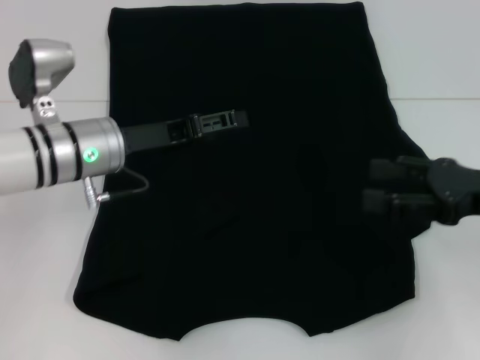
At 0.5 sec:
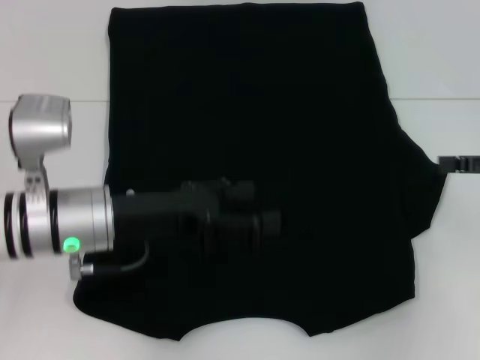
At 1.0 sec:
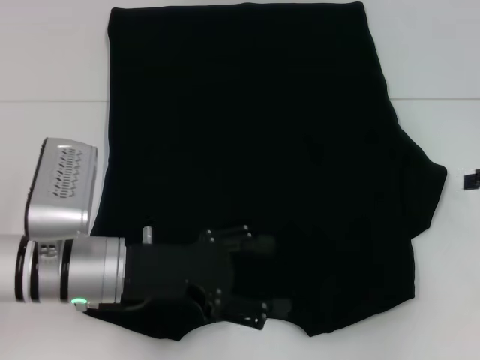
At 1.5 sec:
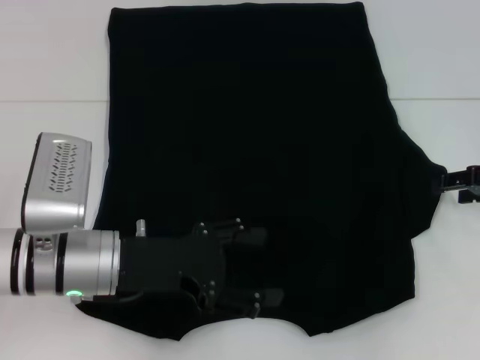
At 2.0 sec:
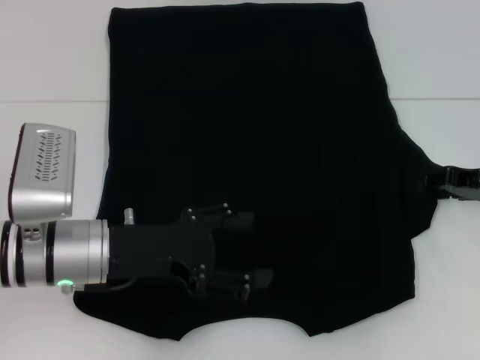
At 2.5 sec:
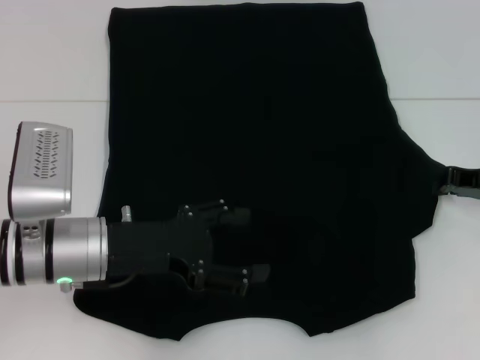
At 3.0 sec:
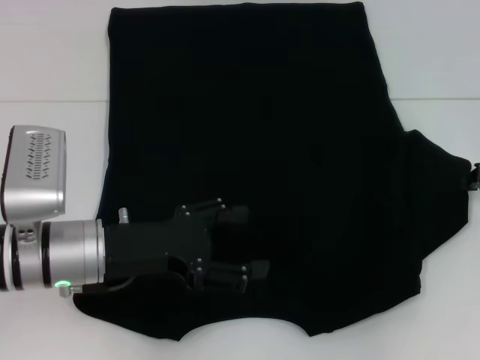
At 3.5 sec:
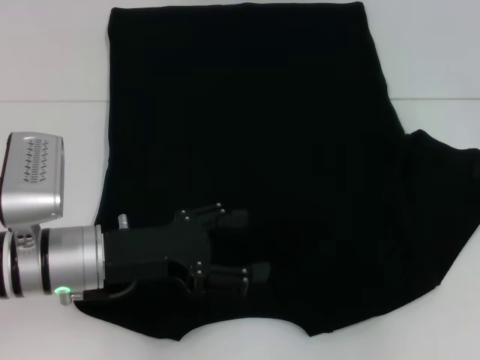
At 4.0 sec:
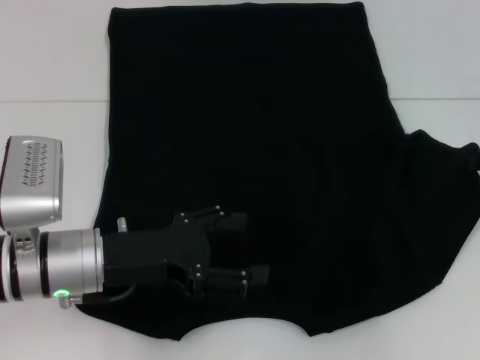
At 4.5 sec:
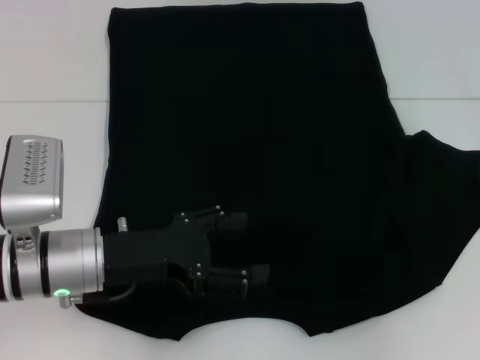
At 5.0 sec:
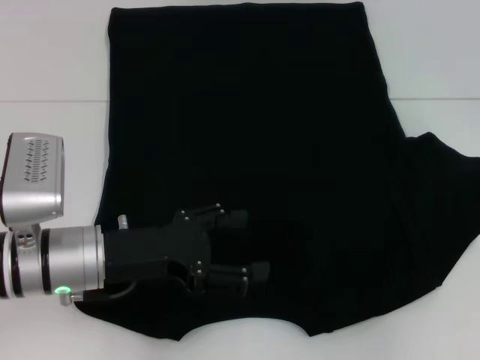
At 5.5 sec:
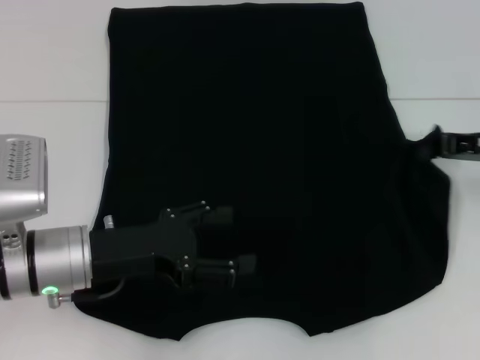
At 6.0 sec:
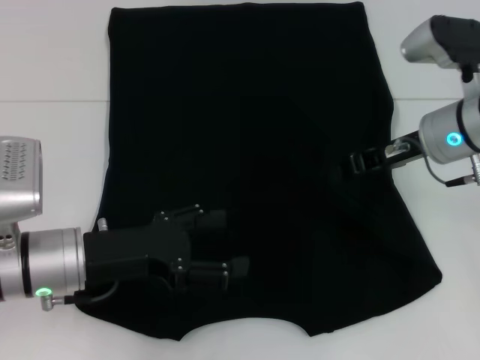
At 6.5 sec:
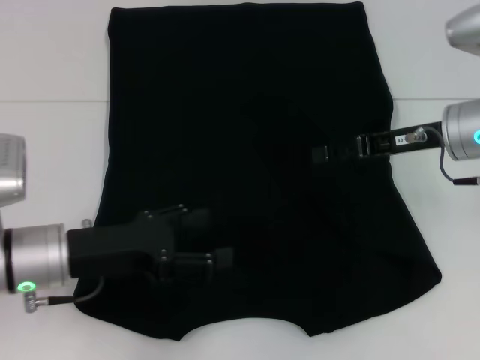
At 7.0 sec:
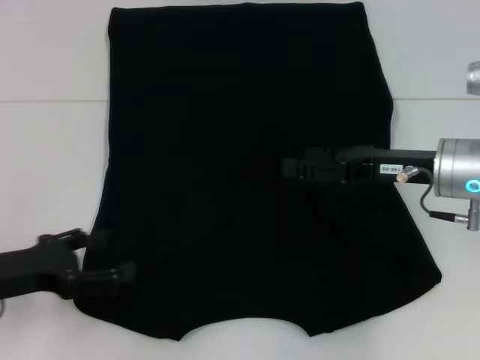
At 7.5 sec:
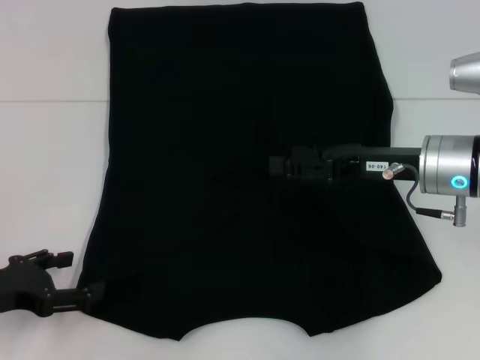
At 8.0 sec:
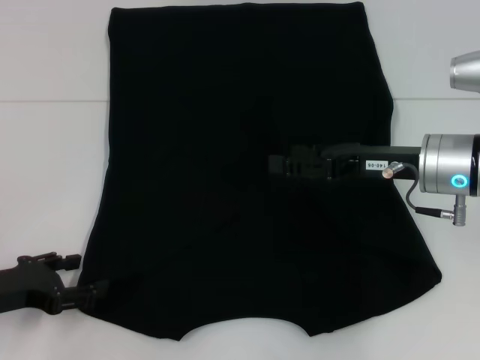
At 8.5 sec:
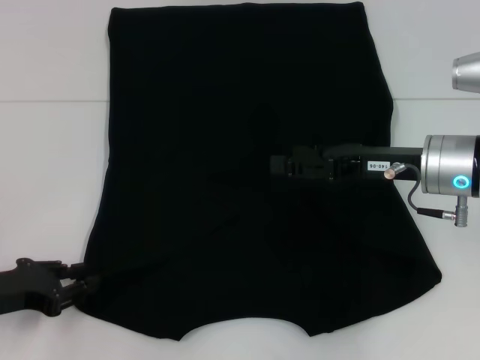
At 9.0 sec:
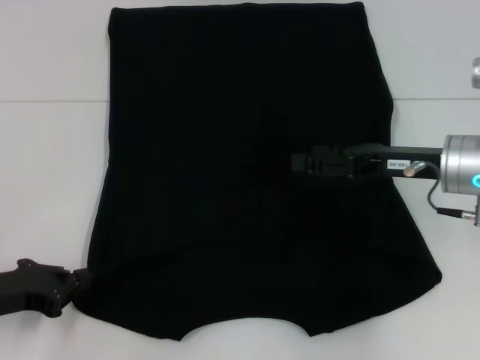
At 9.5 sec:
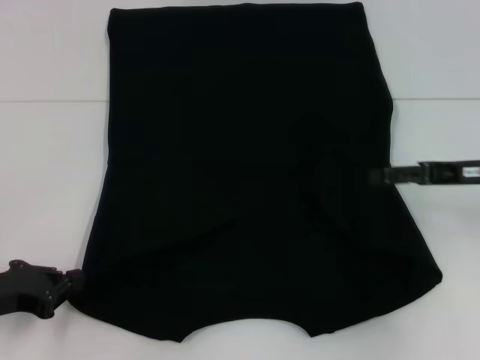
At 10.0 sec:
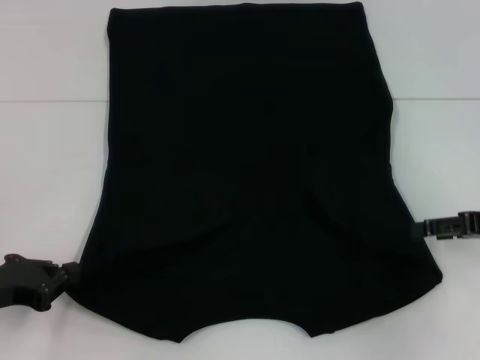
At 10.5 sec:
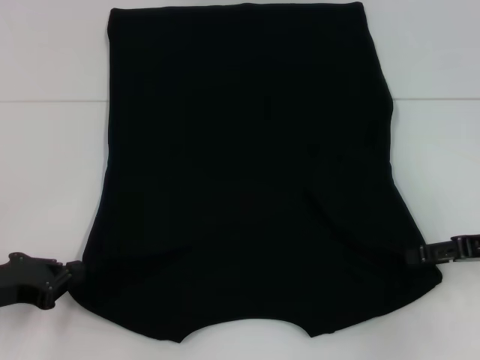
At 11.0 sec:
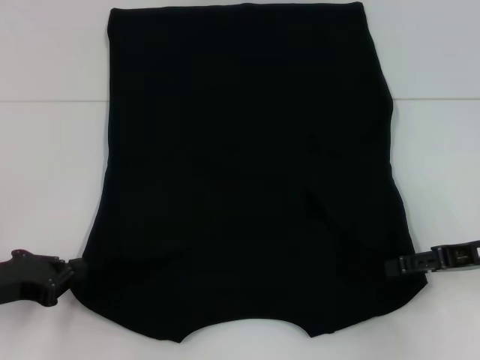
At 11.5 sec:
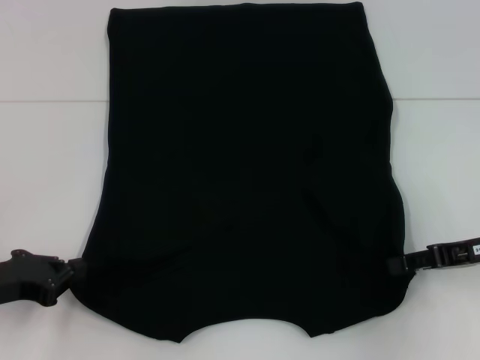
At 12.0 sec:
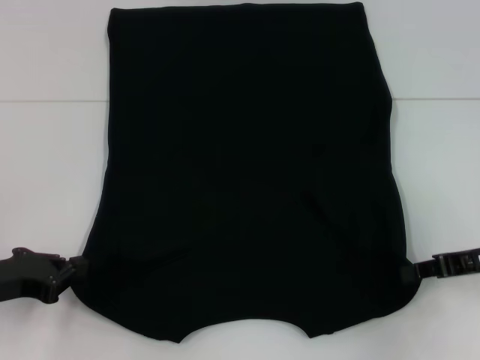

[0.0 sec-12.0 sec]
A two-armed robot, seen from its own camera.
Step, 0.5 sec to 6.0 sec: Fold the bottom right sleeve with your right hand.
Step, 6.5 sec to 9.0 sec: Grab the bottom left corner with your left hand.
Step, 9.5 sec to 11.5 sec: Grab the bottom right corner with your right hand.
0.0 sec to 2.0 sec: The left gripper goes roughly 10 cm backward, while the right gripper is displaced forward by some 10 cm, moves roughly 10 cm to the right and comes back, and closes up.
2.0 sec to 4.0 sec: The right gripper closes up.
4.0 sec to 6.0 sec: The right gripper moves to the left, some 15 cm.
6.0 sec to 8.0 sec: The left gripper shifts approximately 10 cm to the left. Meanwhile the right gripper is displaced backward by about 5 cm, and opens up.
8.0 sec to 10.0 sec: The right gripper heads to the right, covering roughly 15 cm, while the left gripper closes its fingers.
10.0 sec to 12.0 sec: The right gripper closes up.

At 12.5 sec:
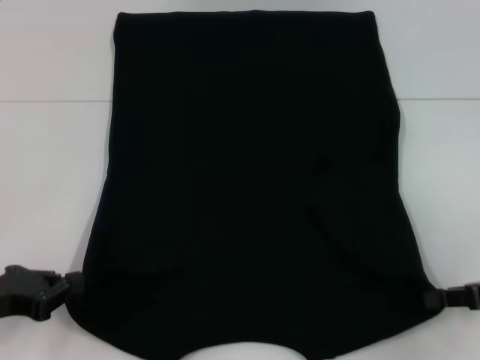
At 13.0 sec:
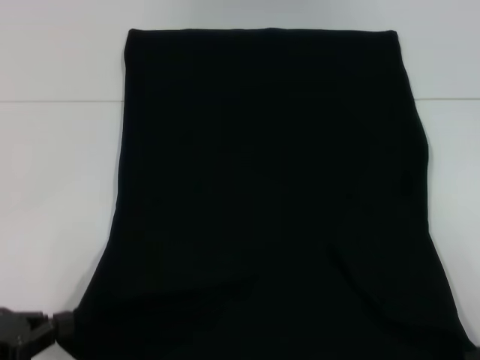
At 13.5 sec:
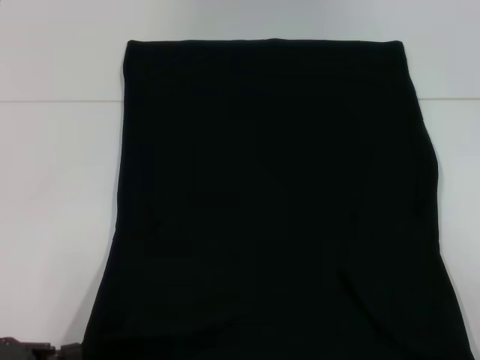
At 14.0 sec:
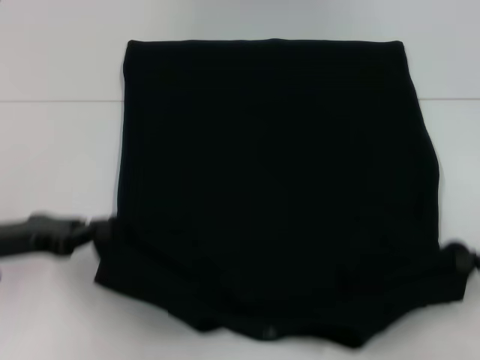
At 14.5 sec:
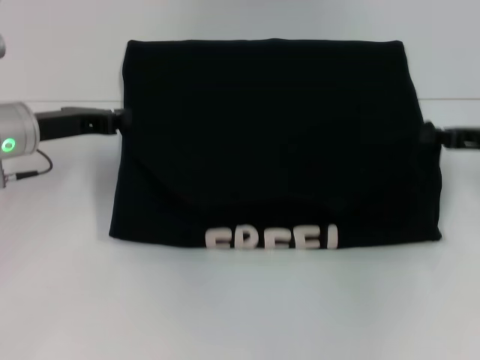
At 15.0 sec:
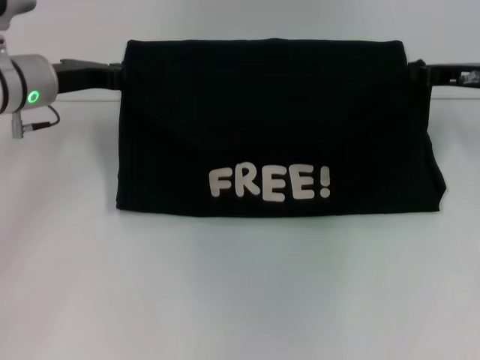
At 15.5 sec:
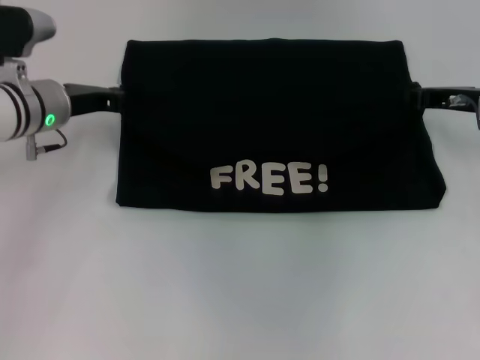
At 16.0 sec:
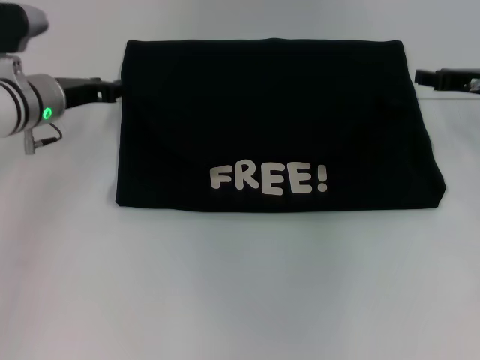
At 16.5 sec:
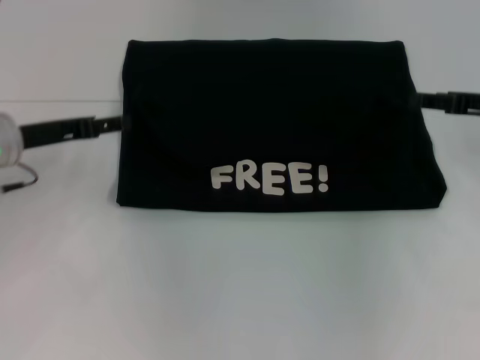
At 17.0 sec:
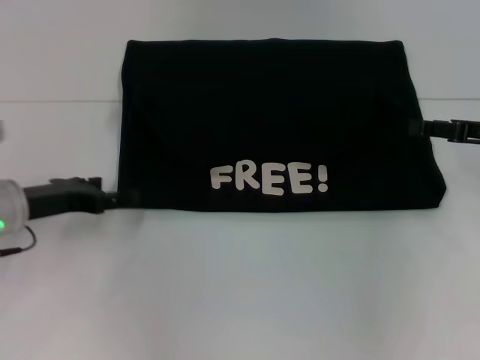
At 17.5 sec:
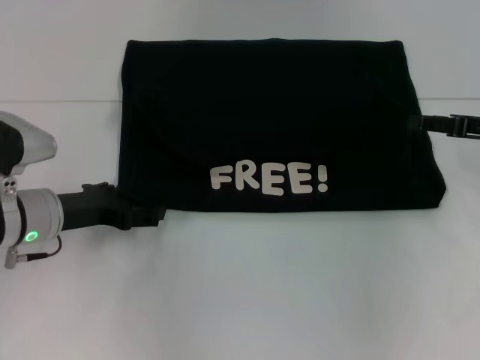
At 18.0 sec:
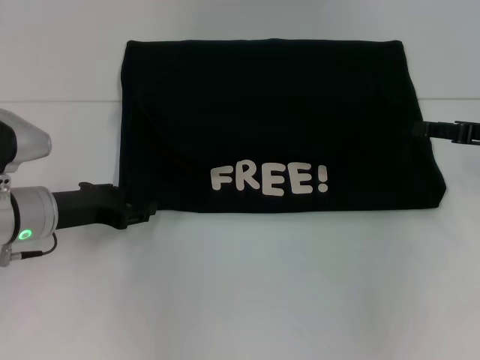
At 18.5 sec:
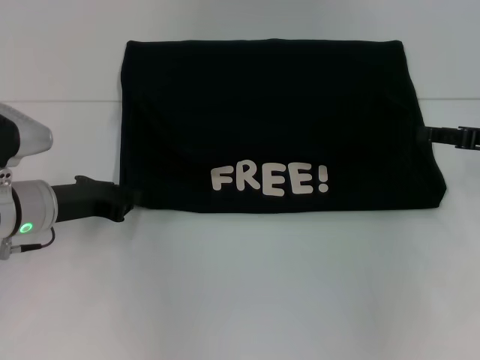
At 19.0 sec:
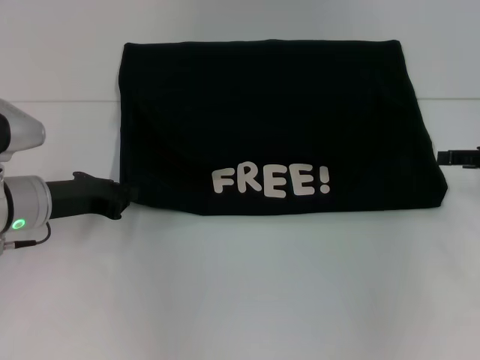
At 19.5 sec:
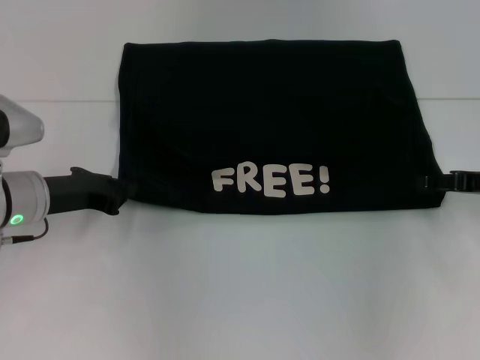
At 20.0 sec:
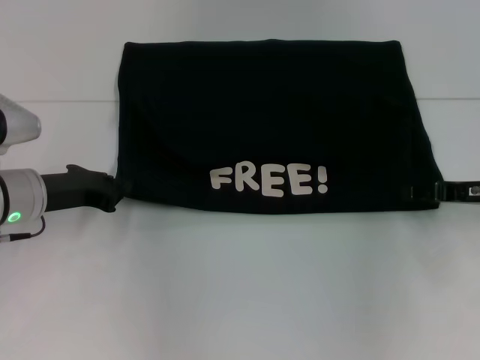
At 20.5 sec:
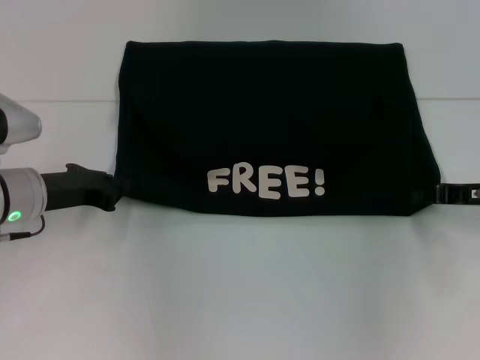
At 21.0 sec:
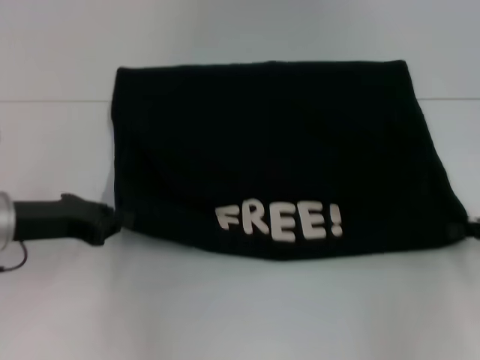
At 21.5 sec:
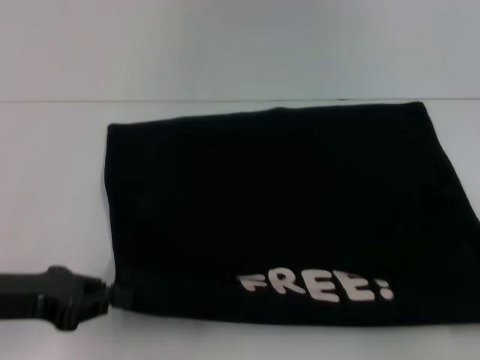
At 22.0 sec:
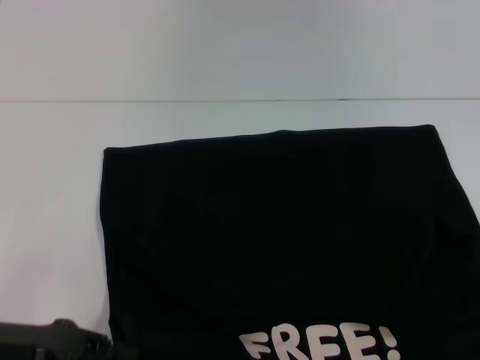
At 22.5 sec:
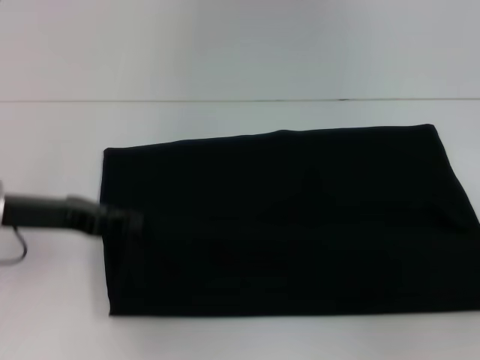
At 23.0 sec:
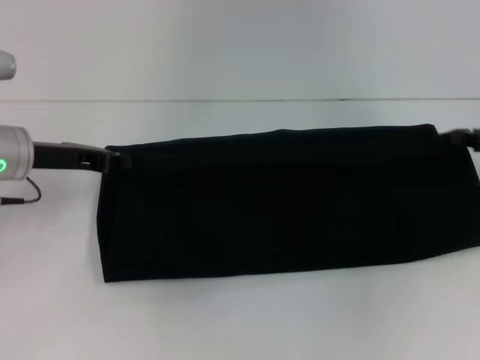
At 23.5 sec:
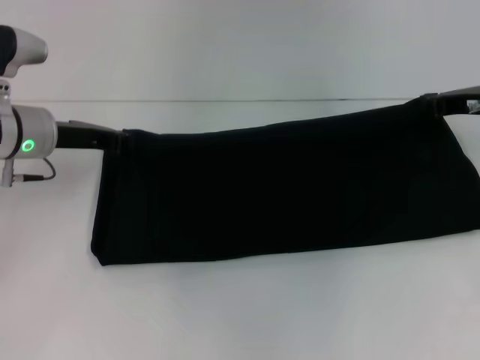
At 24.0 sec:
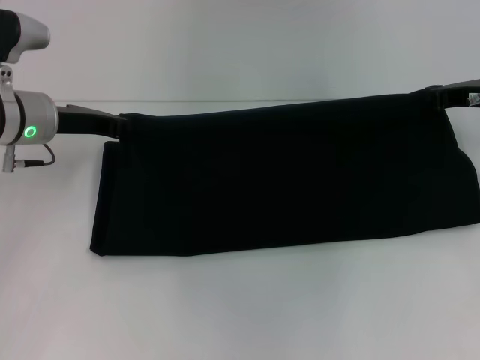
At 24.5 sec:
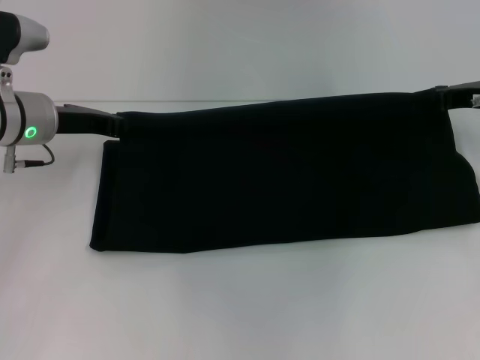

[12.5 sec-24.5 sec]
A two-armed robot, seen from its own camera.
Step, 12.5 sec to 15.5 sec: Fold the clothes with your left hand.
Step, 12.5 sec to 15.5 sec: Fold the clothes with your right hand.
Step, 16.0 sec to 21.5 sec: Pull the clothes with your left hand.
Step, 16.0 sec to 21.5 sec: Pull the clothes with your right hand.
12.5 sec to 14.5 sec: The left gripper shifts roughly 15 cm forward. The right gripper is displaced forward by some 10 cm.
14.5 sec to 16.5 sec: The left gripper opens; the right gripper opens up.
16.5 sec to 18.5 sec: The left gripper shifts roughly 5 cm downward.
18.5 sec to 20.5 sec: The left gripper closes its fingers, while the right gripper closes.
20.5 sec to 22.5 sec: The right gripper moves to the right and backward, approximately 10 cm, while the left gripper reaches roughly 15 cm backward, then returns.
22.5 sec to 24.5 sec: The left gripper moves forward, roughly 10 cm, while the right gripper shifts about 20 cm forward and to the left.

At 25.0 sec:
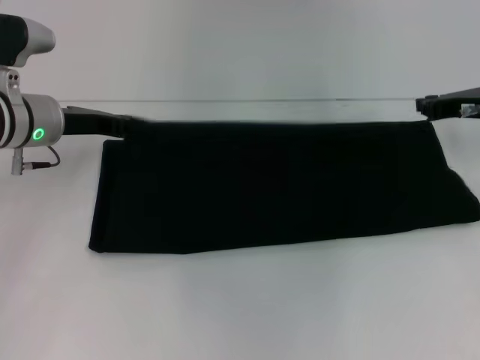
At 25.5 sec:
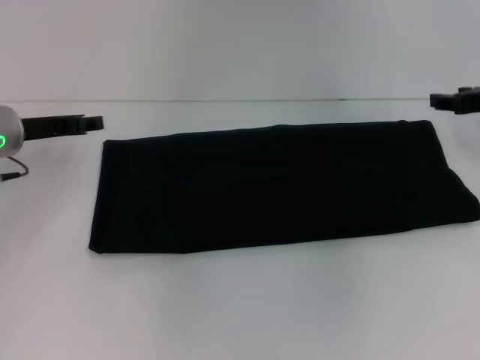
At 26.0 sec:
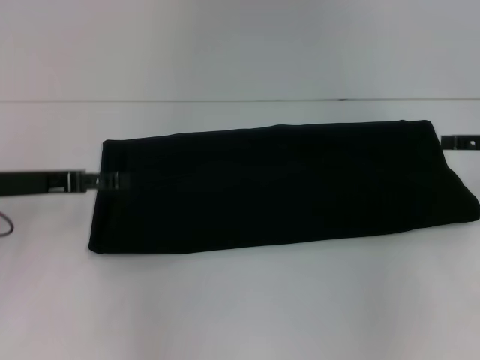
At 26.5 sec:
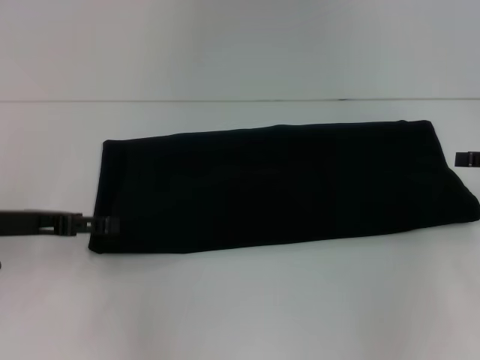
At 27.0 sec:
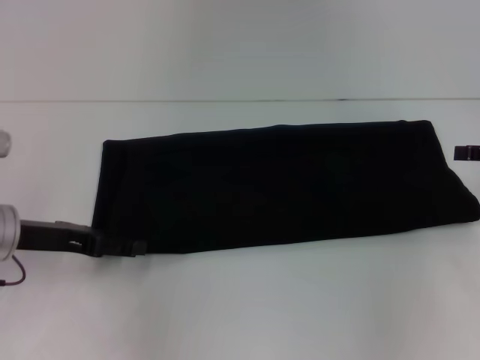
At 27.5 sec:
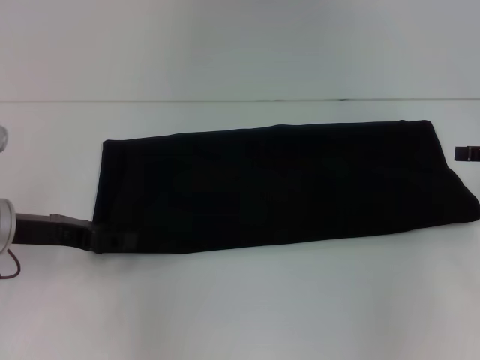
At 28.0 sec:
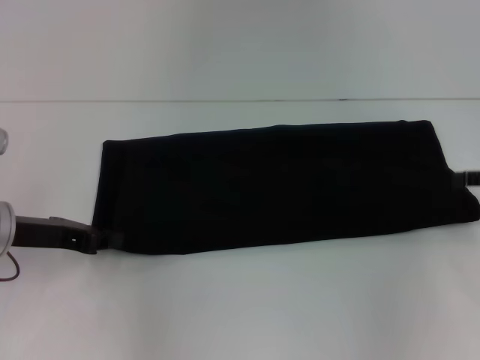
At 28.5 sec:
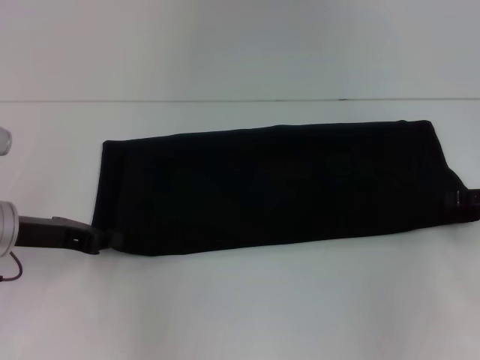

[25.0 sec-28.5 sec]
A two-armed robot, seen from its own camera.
25.0 sec to 27.0 sec: The right gripper travels to the right and backward by about 10 cm, and opens up. The left gripper moves backward, about 10 cm, and opens.
27.0 sec to 28.5 sec: The left gripper closes.
